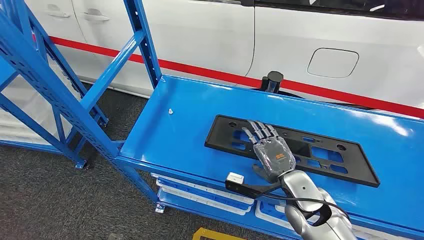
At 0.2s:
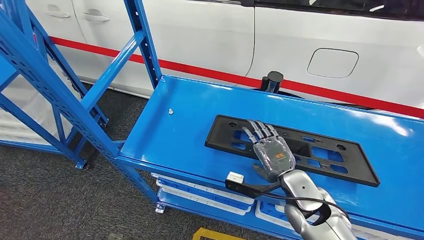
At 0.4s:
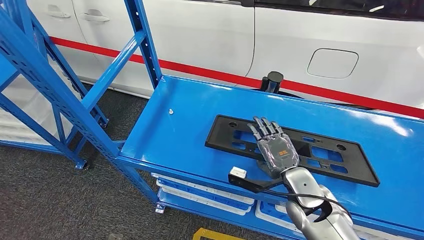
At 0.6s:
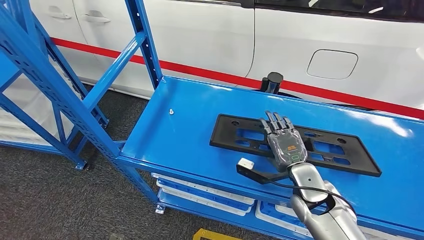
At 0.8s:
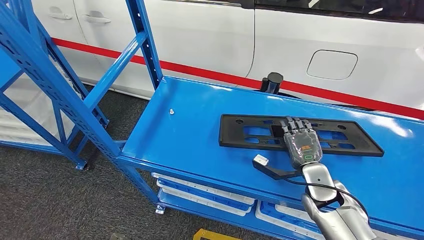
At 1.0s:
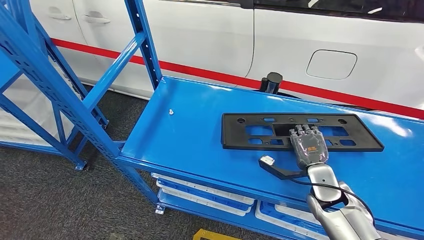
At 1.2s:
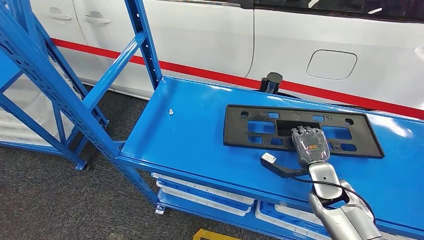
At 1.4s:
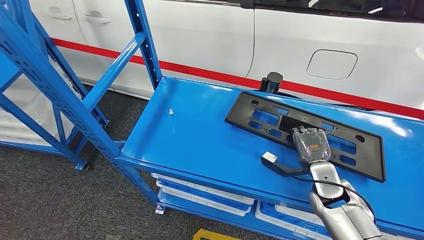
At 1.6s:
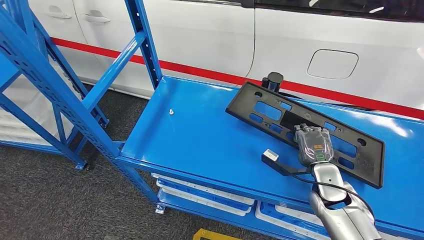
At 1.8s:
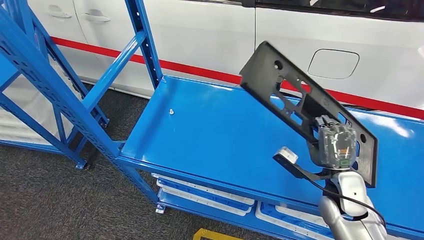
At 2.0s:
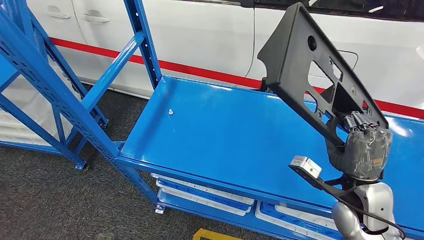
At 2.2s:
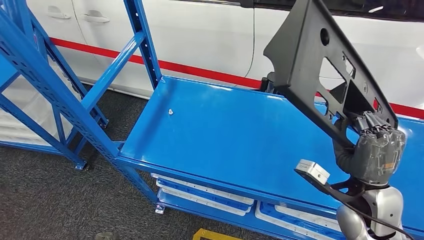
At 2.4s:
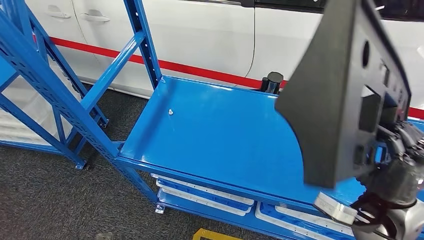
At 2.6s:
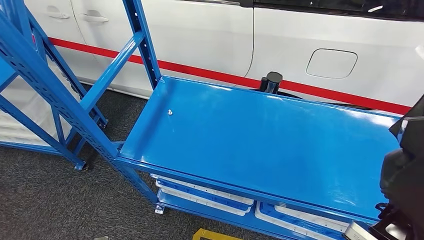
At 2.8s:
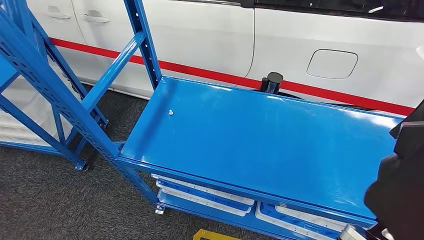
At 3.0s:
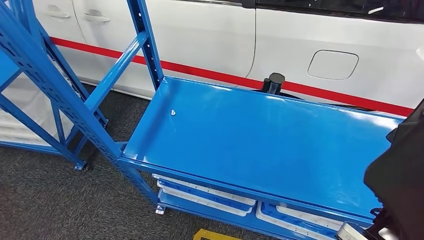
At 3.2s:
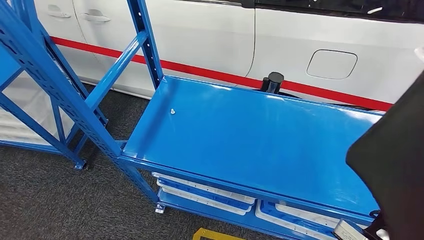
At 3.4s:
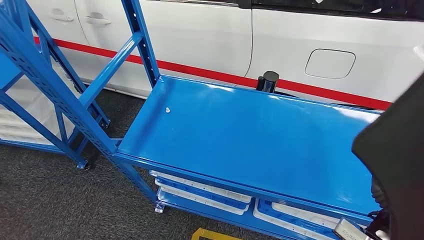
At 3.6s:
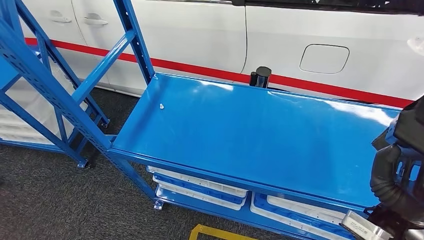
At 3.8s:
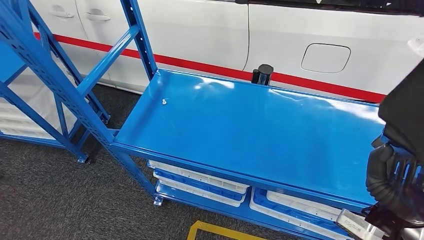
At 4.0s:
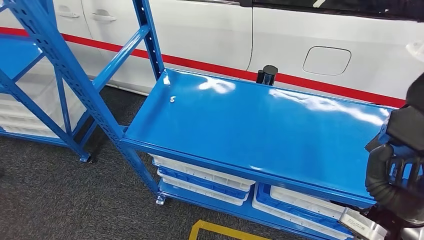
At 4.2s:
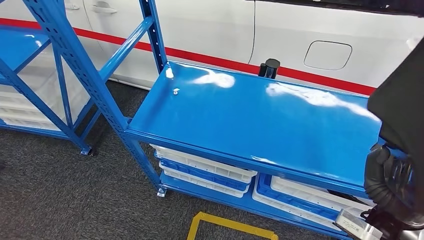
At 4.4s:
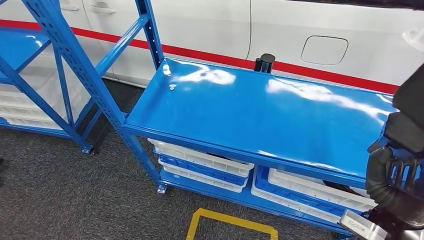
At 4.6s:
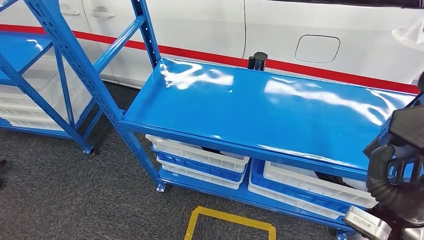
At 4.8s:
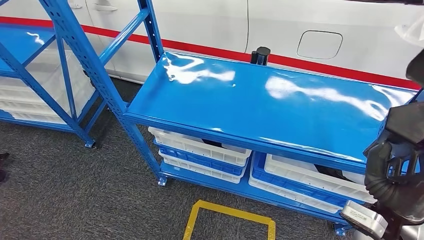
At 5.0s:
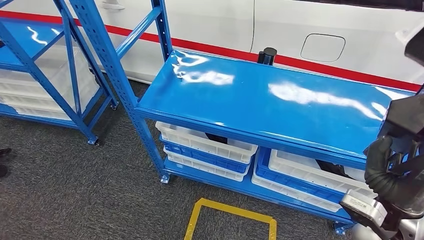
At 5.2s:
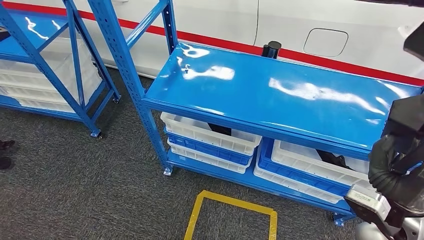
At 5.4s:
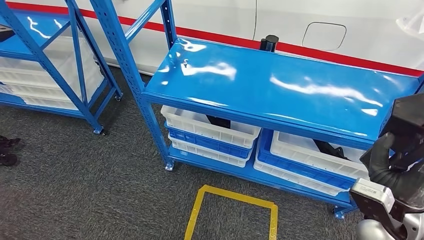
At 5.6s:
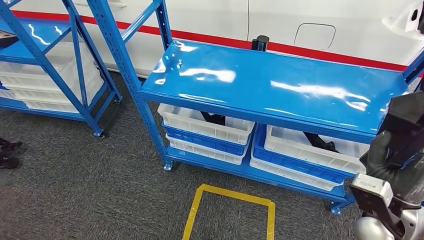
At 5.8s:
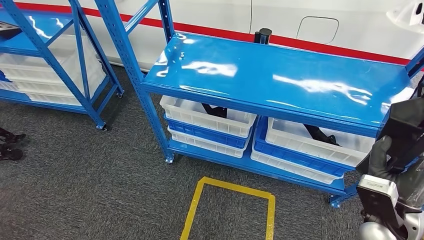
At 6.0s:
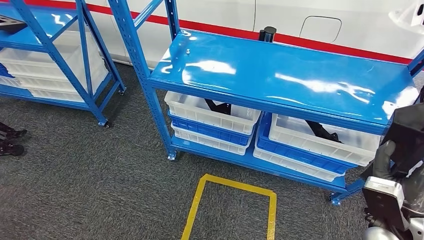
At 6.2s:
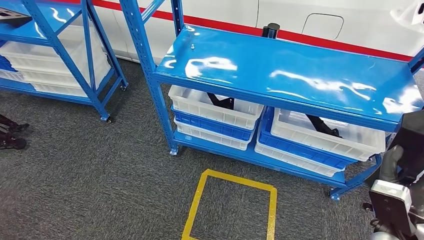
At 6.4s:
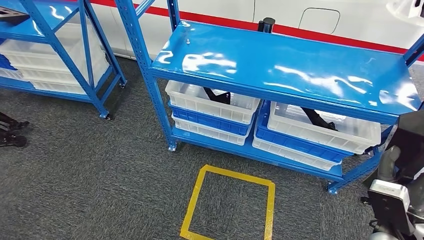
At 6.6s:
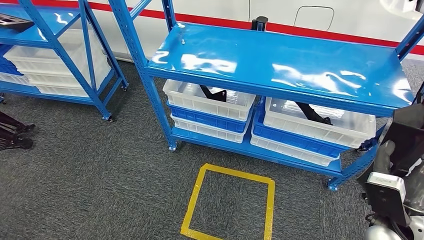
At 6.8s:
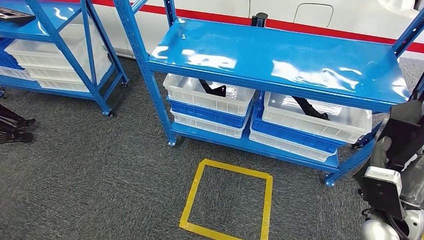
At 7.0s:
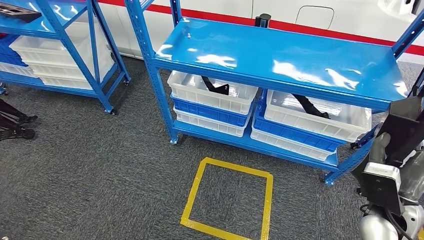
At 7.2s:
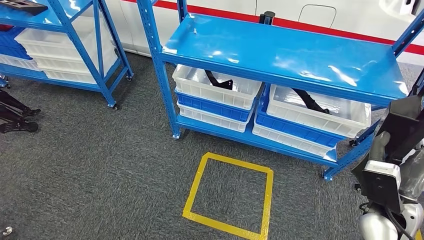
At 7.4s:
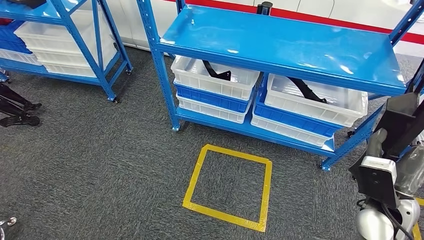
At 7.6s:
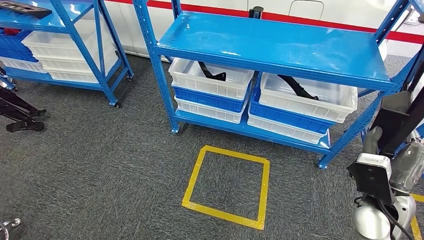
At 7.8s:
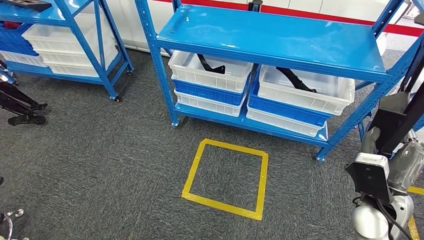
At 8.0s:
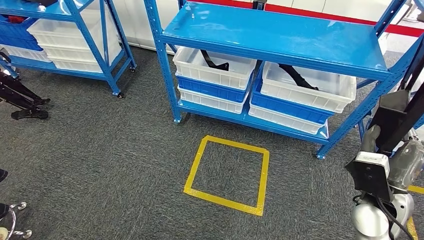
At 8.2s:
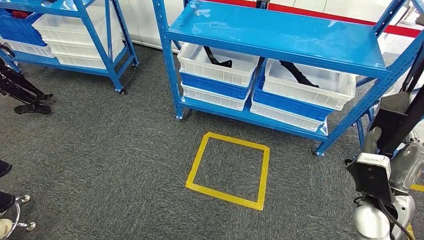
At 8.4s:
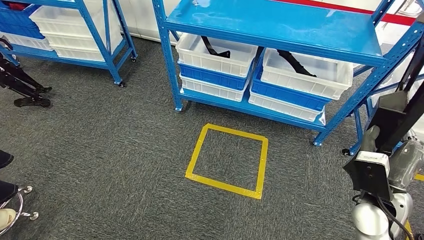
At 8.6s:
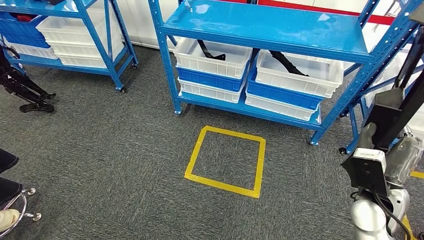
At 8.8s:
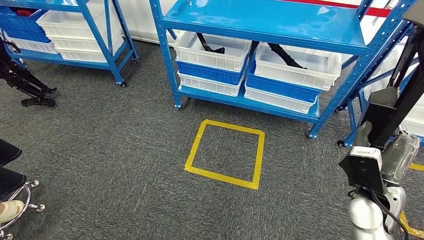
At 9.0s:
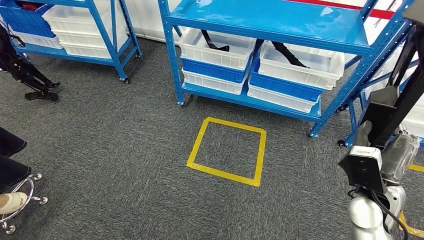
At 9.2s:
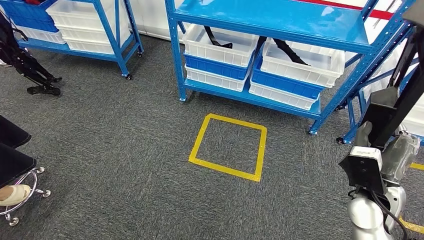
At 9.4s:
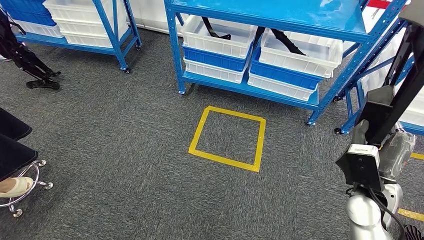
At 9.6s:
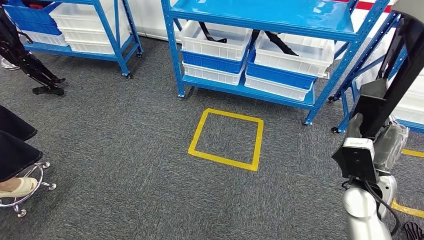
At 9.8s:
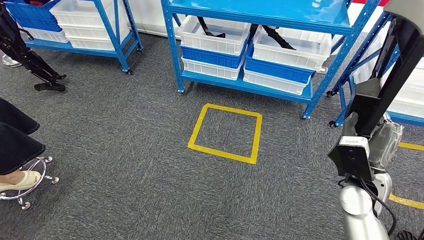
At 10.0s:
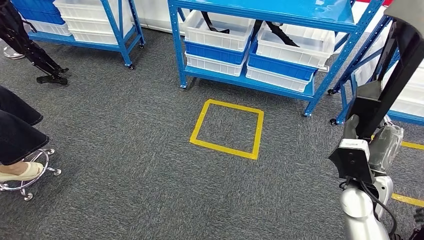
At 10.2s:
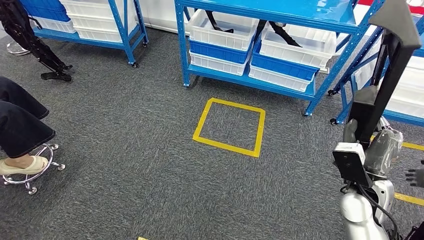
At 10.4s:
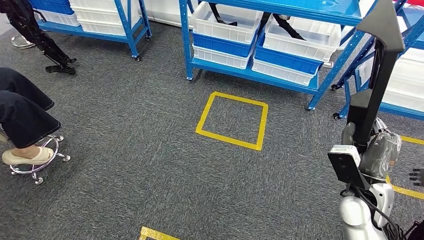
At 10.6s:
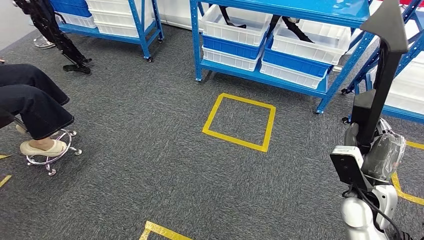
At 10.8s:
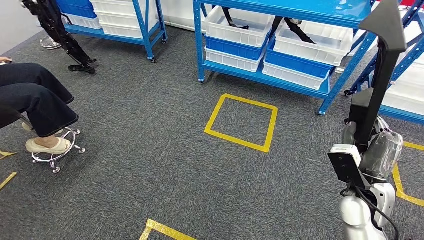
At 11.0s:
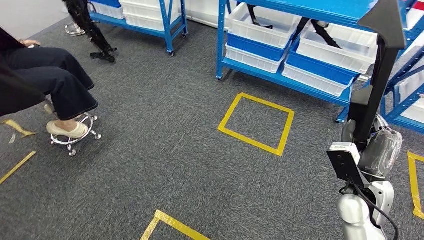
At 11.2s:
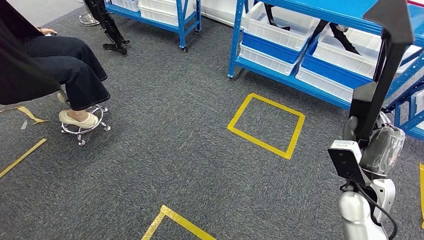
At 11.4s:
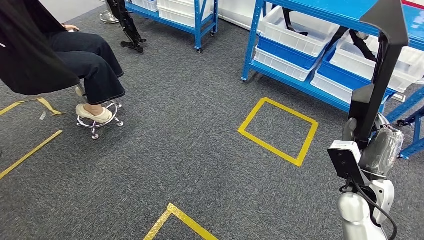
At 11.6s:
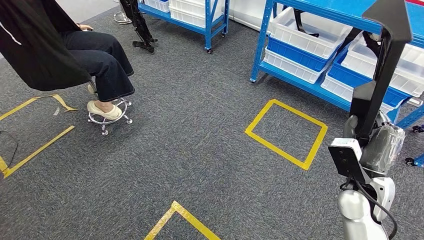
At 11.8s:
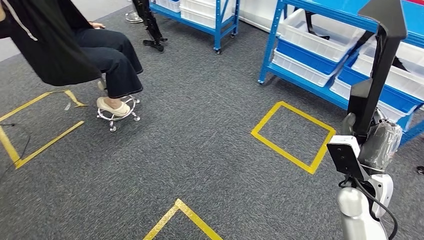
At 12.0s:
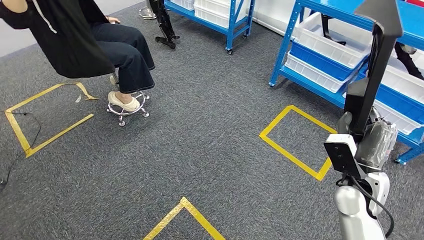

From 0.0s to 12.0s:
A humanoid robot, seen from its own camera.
Step, from 0.0s to 4.6s: Pick up the large material from the shelf.
From 1.6s to 3.0s: The right hand moves backward and upward, some 15 cm.

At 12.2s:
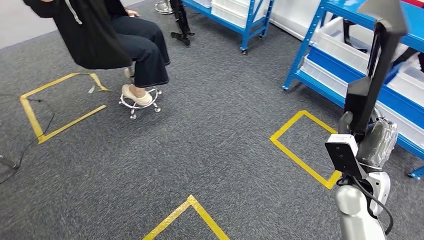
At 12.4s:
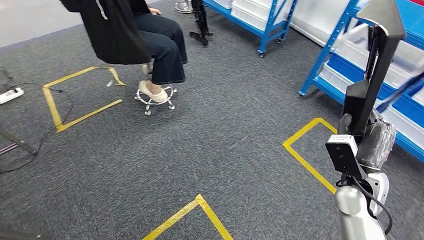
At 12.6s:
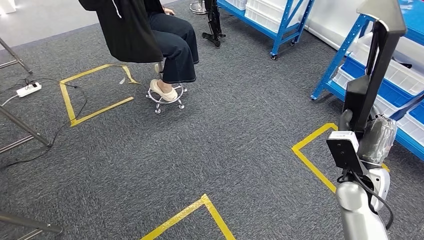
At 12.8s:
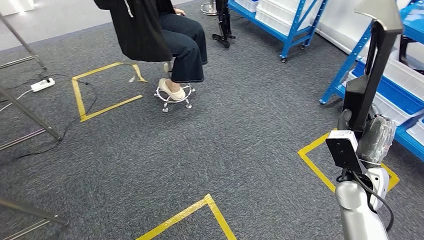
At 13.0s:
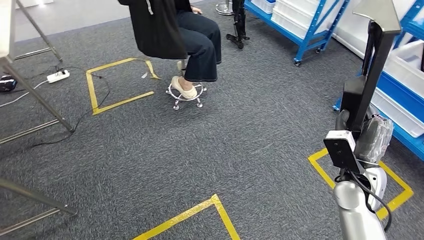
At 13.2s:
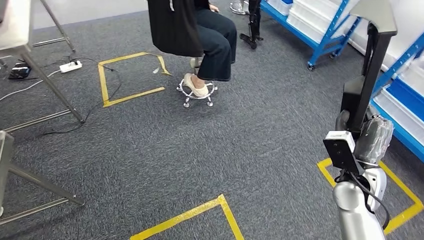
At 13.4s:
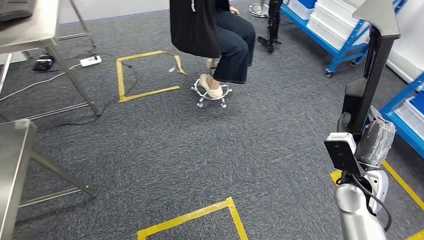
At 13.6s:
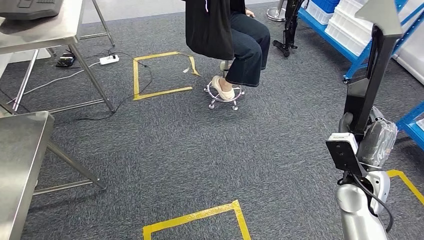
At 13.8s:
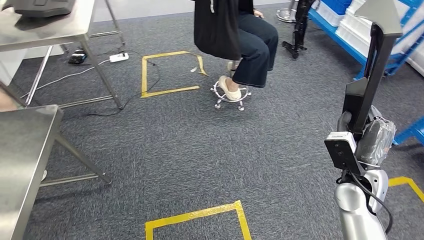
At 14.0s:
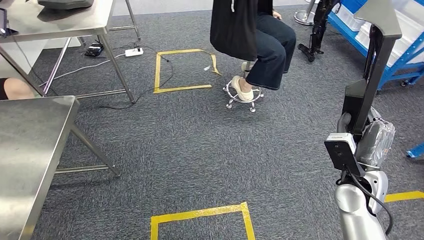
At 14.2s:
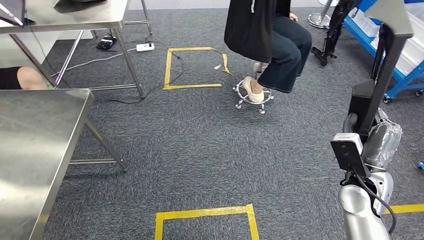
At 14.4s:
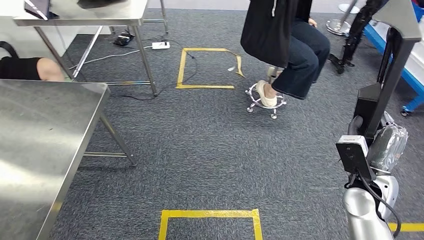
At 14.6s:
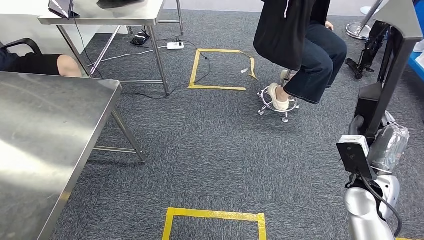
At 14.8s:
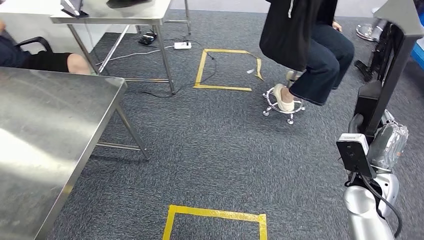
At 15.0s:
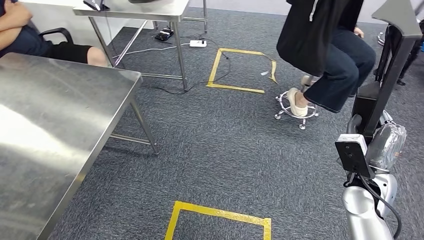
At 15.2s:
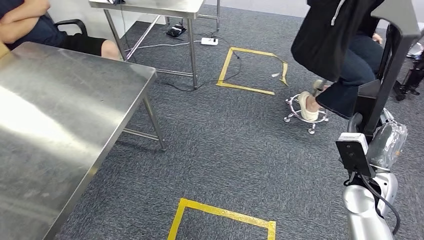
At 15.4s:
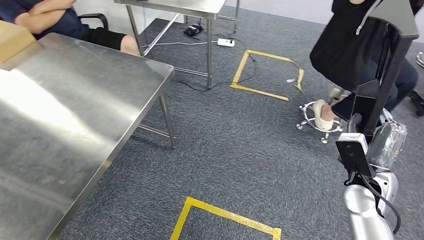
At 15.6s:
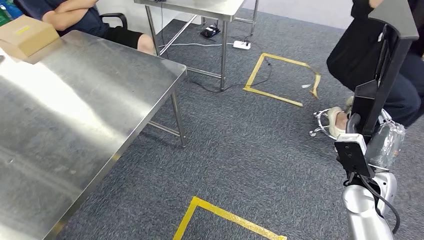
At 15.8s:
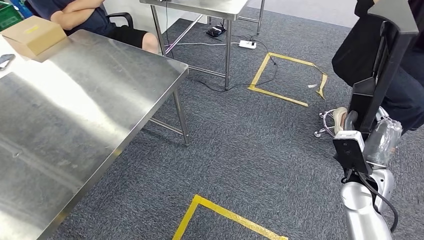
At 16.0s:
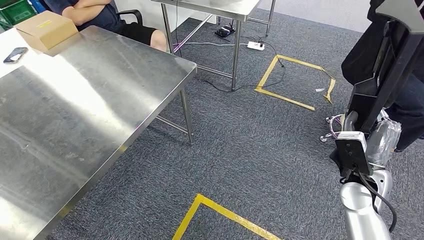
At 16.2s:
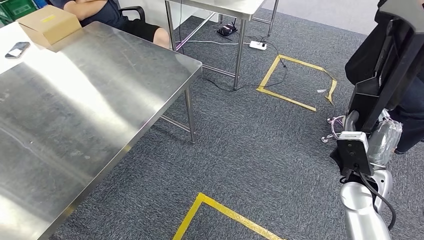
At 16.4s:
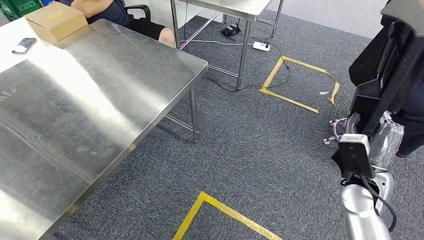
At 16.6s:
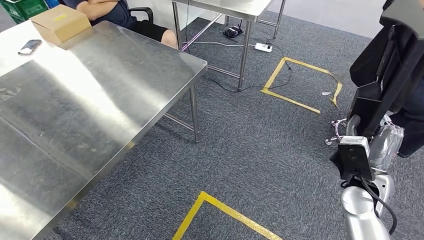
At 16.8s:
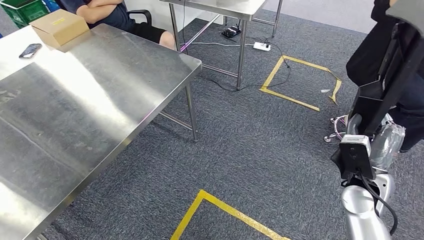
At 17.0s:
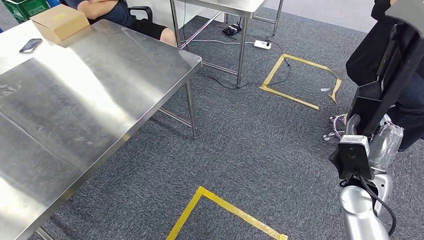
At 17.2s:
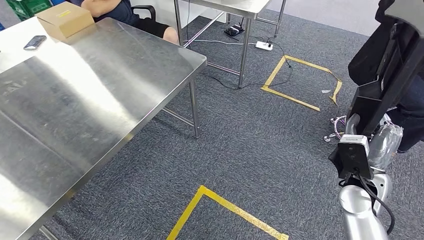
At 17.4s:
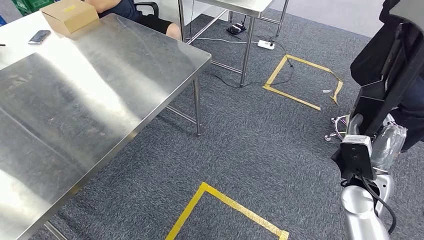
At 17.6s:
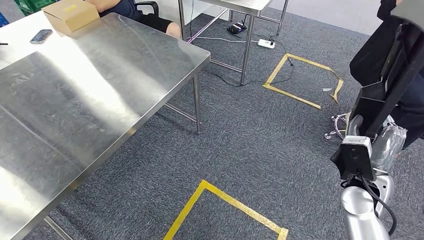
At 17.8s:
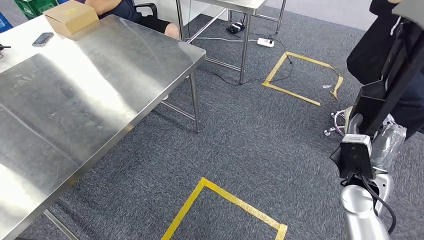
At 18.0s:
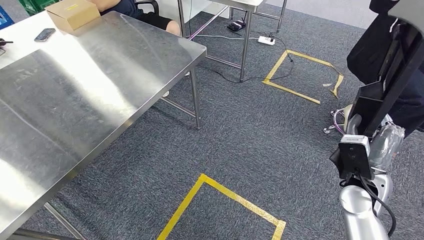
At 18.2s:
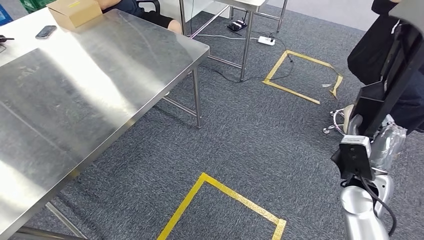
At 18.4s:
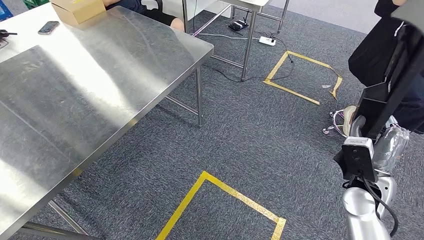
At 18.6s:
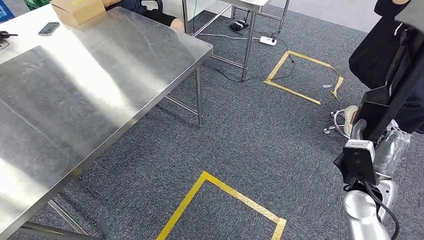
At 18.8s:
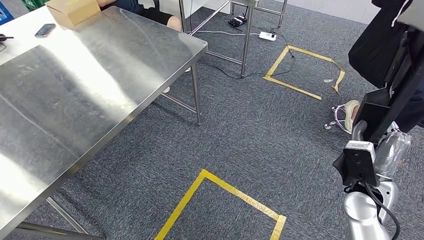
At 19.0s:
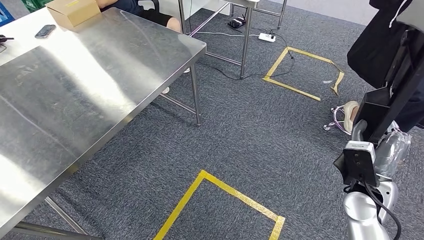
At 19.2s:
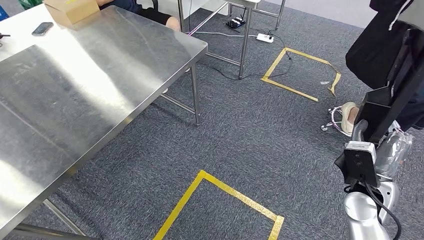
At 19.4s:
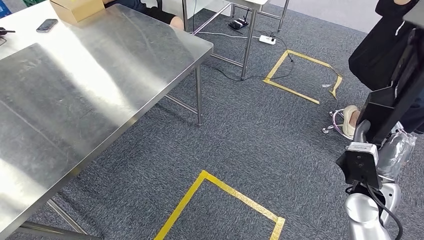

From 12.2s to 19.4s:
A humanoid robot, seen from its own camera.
From 18.0s to 19.4s: The hands move only a little.
